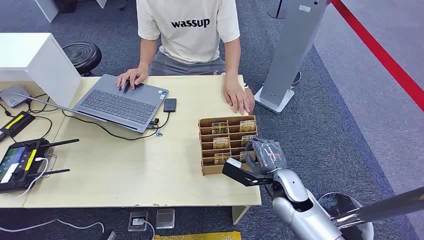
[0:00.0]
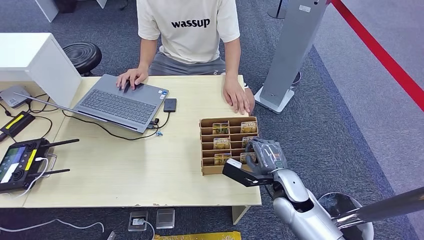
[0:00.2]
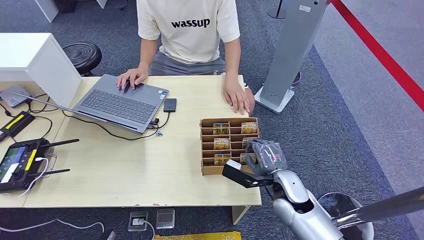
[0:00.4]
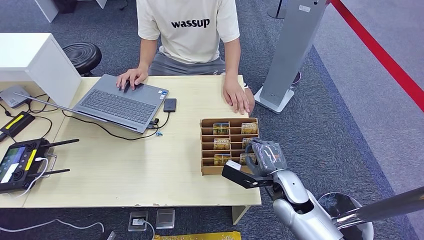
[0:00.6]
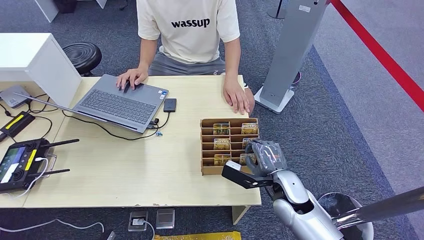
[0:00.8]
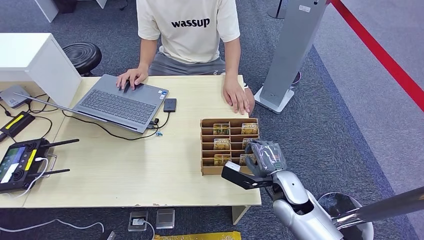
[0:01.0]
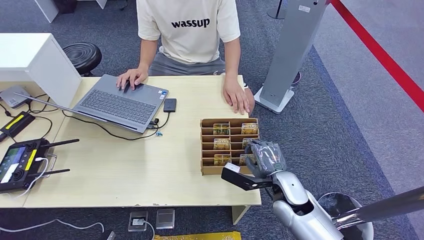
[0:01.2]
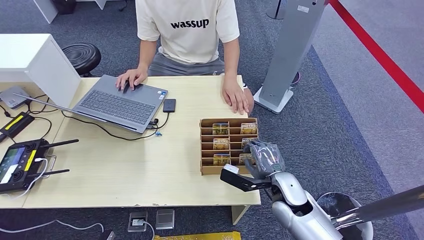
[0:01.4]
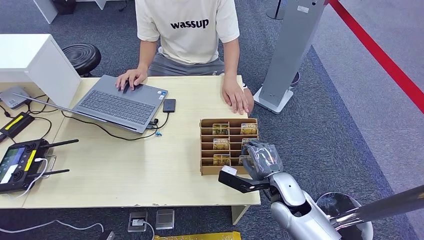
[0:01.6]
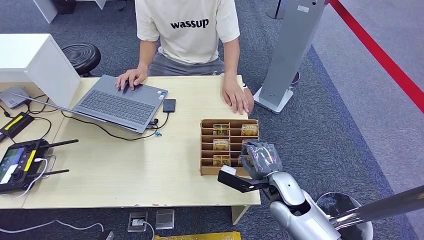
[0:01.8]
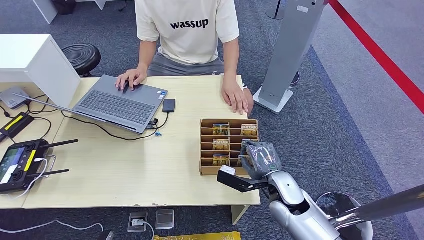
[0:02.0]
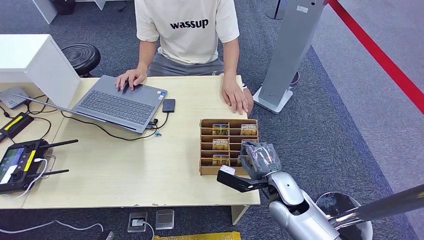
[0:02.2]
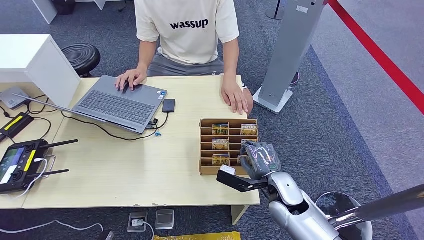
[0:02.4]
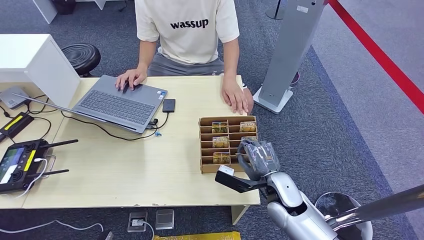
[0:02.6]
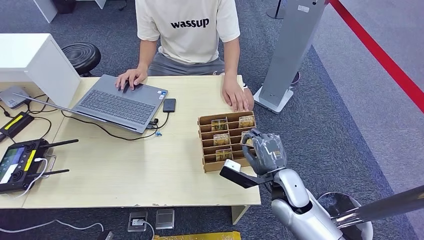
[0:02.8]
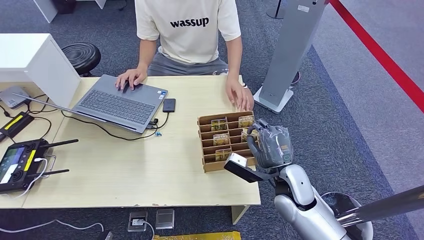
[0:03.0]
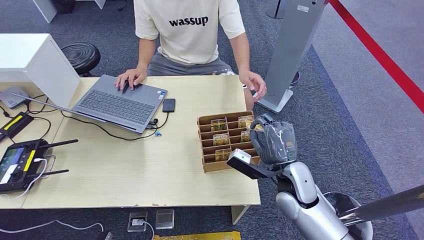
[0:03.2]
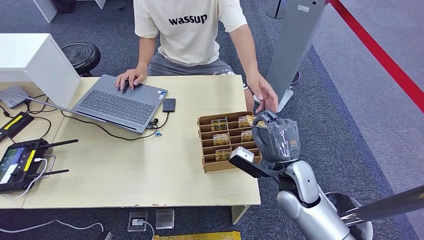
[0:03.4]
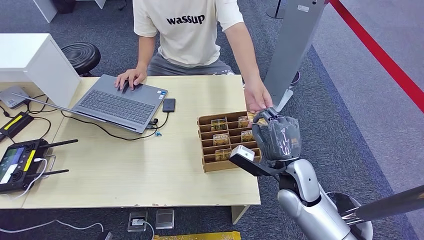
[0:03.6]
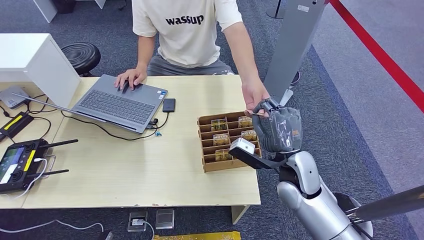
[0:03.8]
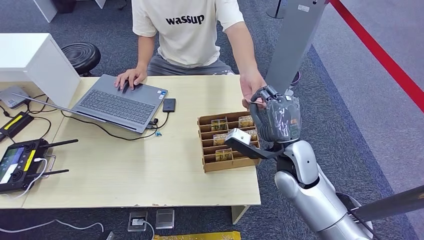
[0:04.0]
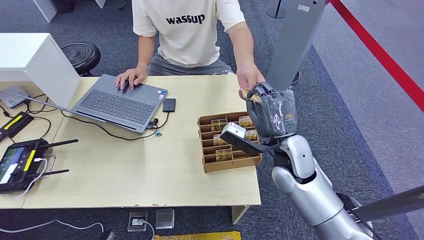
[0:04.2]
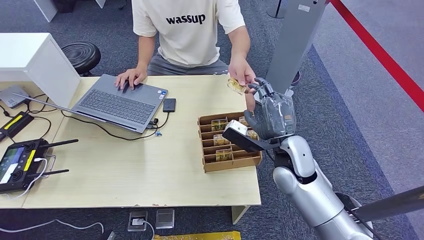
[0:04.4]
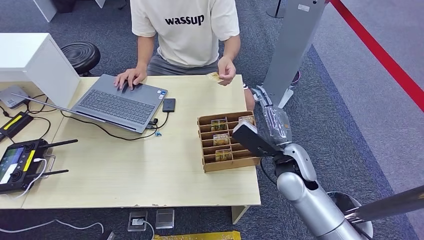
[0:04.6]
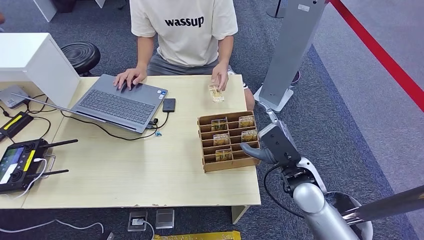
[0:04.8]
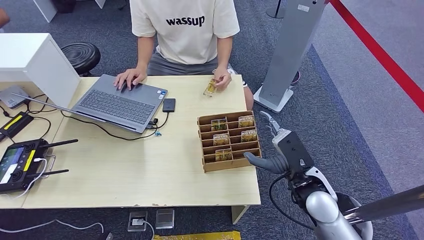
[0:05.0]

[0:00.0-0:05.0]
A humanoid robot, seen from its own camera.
Task of the whole recording: Pick up the card and hand it to the target person.
Step, 0:00.0 to 0:03.2: Pick up the key card from the card box.
Step, 0:03.4 to 0:05.0: Hand the key card to the target.
0:01.6 to 0:03.4: The right hand goes approximately 5 cm upward.
